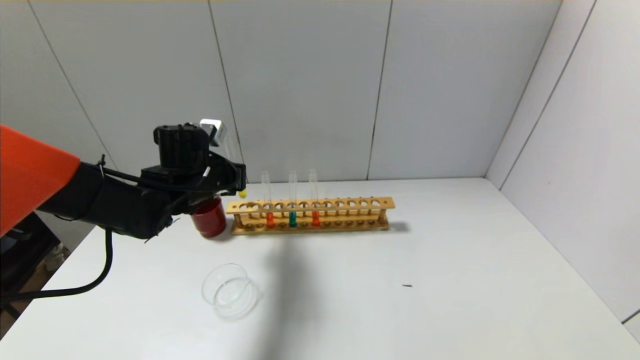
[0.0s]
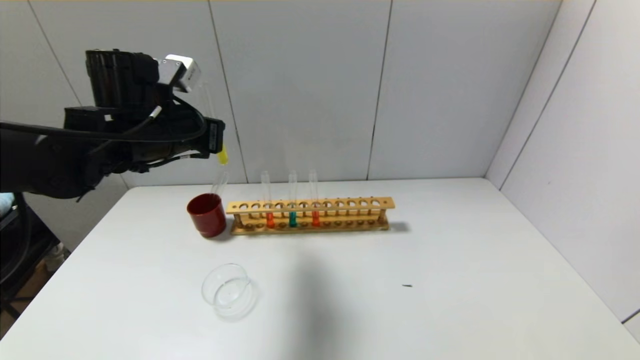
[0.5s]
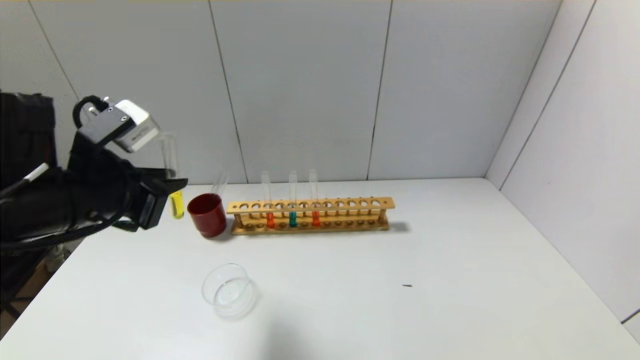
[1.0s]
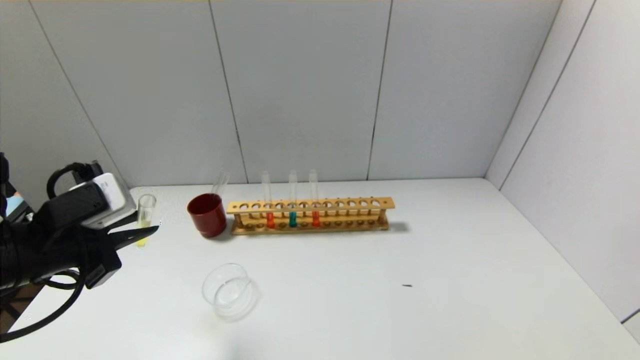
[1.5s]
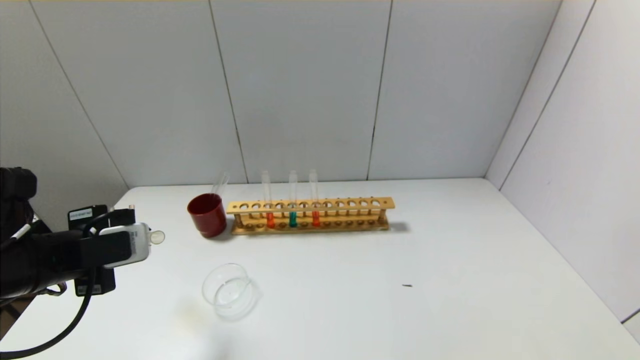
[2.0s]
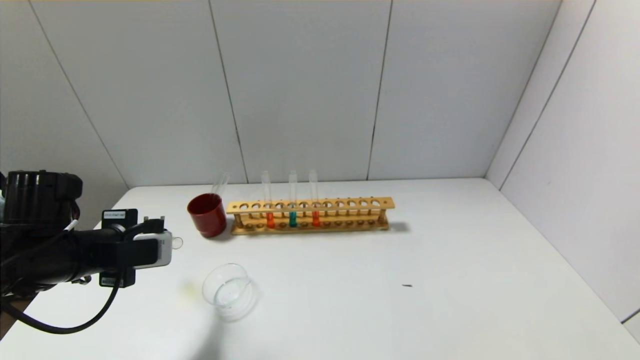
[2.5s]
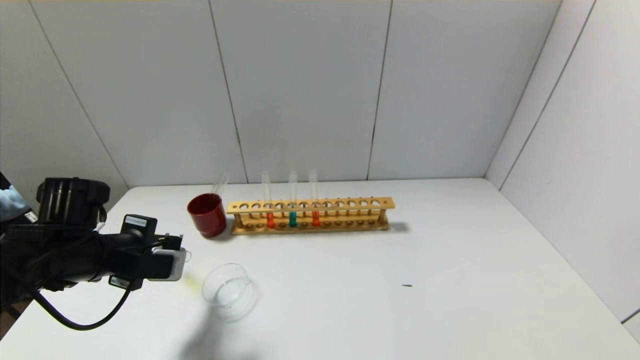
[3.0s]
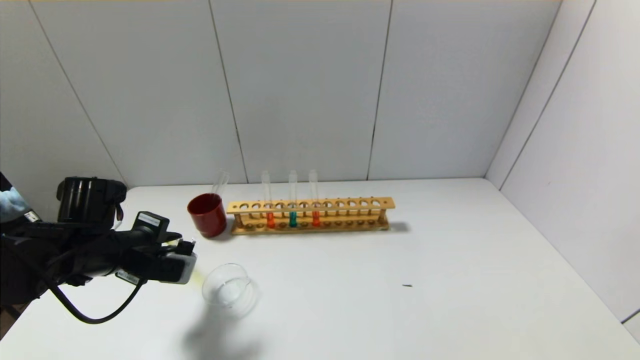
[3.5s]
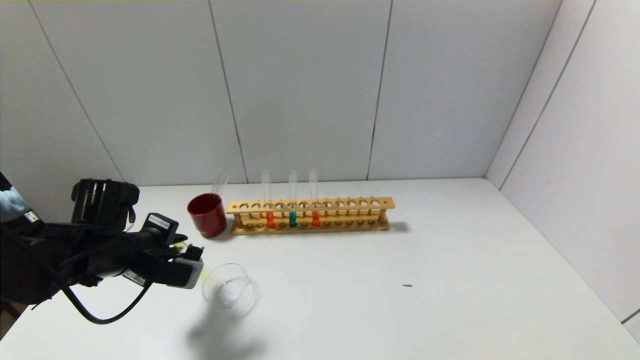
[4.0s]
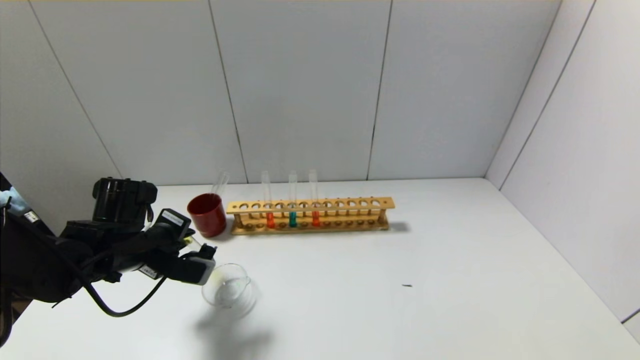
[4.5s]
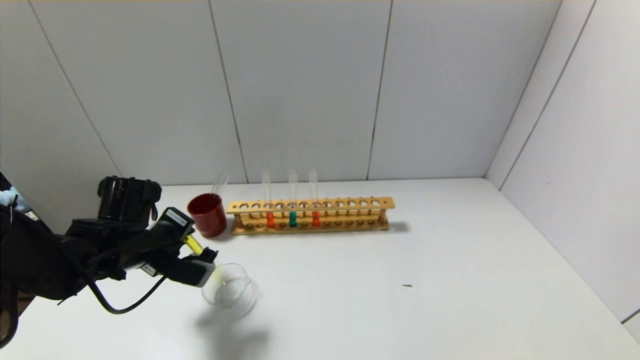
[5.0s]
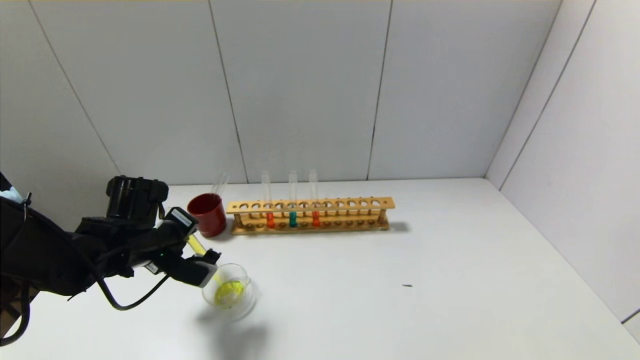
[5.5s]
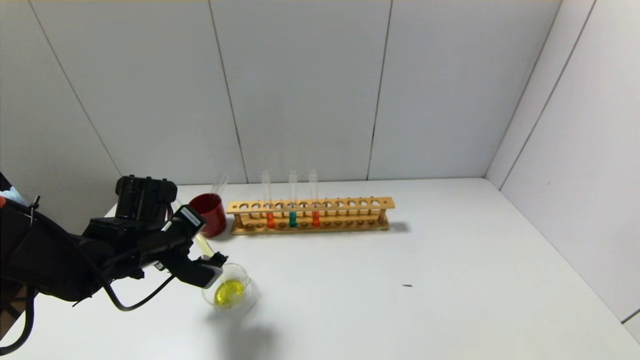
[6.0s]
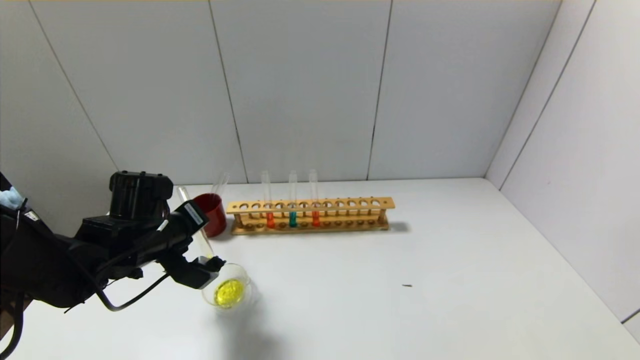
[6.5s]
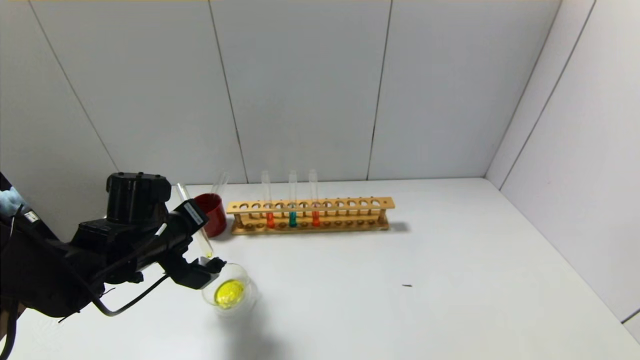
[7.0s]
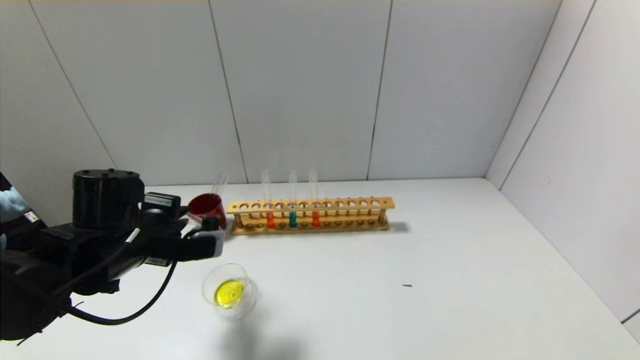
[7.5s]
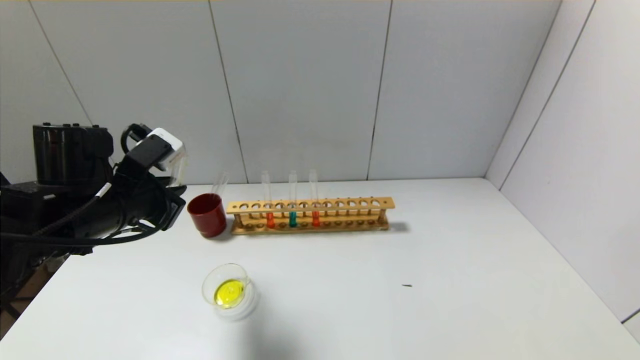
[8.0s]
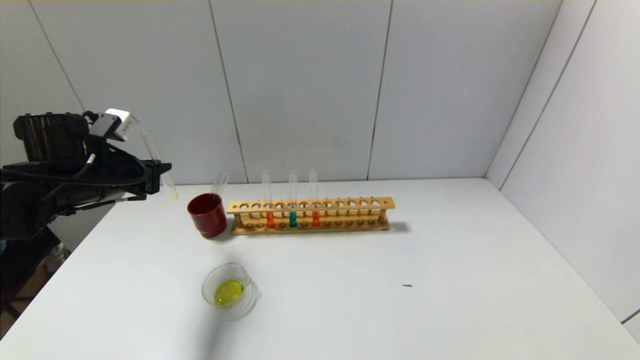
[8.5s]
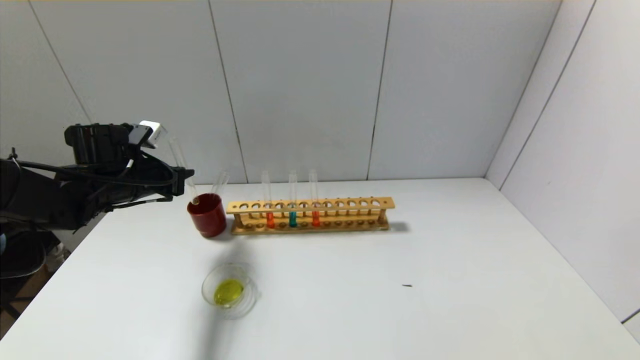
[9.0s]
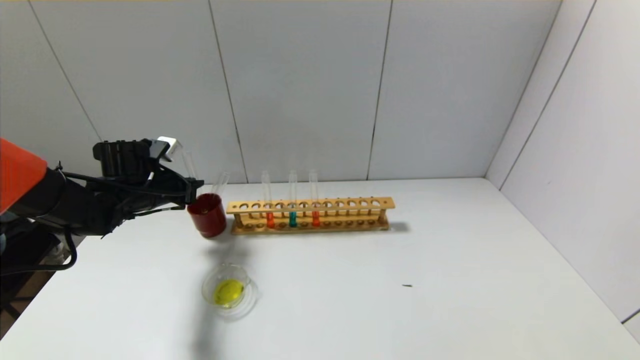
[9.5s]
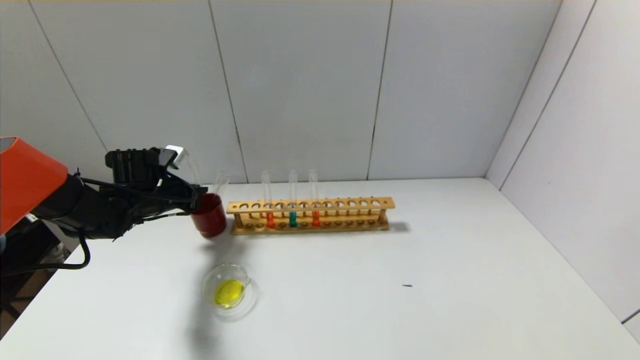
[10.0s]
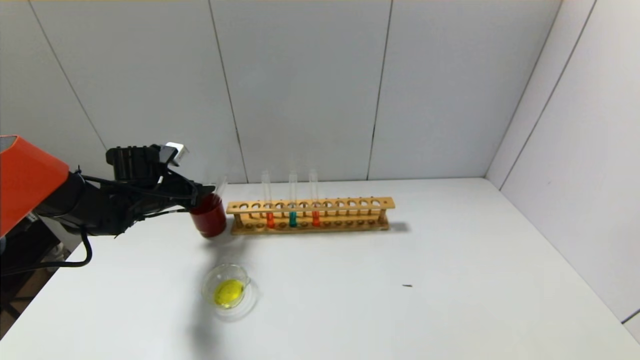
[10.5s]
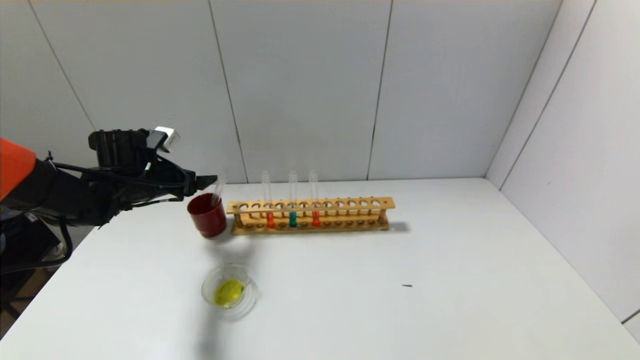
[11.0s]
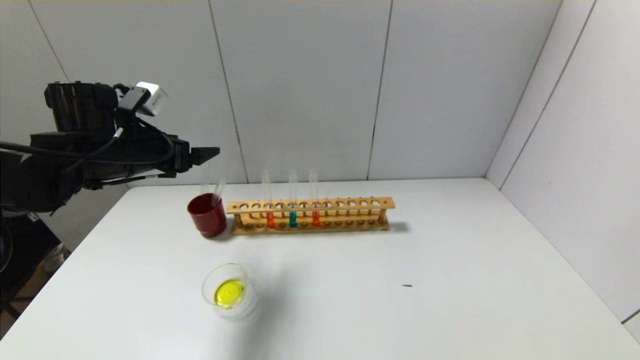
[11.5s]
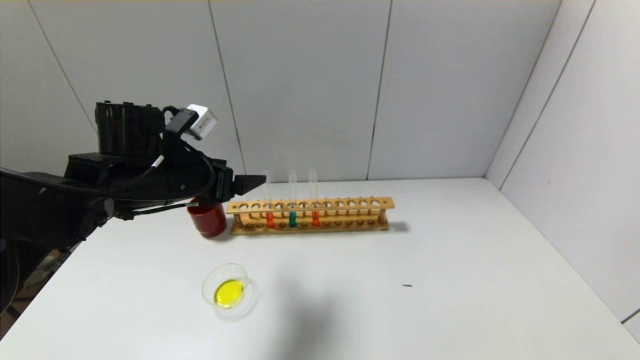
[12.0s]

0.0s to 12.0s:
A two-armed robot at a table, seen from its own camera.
Step, 0.0s to 7.5s: Pour the yellow reagent into the graduated cylinder with the left gripper.
Step, 8.0s to 10.0s: Place the test tube into the brown cup with the left gripper.
0.0s to 2.0s: The left gripper is displaced backward and to the left by roughly 20 cm.
2.0s to 4.0s: The left gripper moves forward and downward, about 10 cm.
6.0s to 8.0s: The left gripper moves upward, roughly 10 cm.
8.0s to 10.0s: The left gripper goes approximately 20 cm forward, downward and to the left.
10.0s to 12.0s: The left gripper goes roughly 20 cm upward, backward and to the right, and opens.

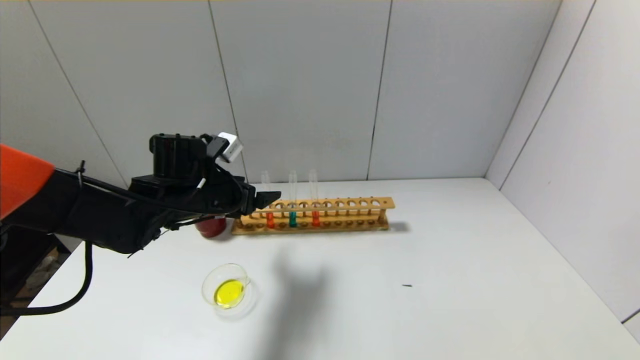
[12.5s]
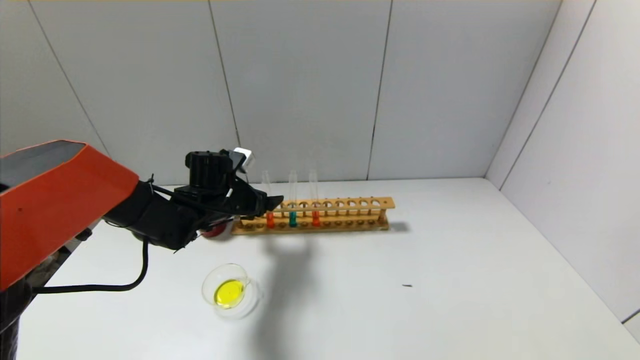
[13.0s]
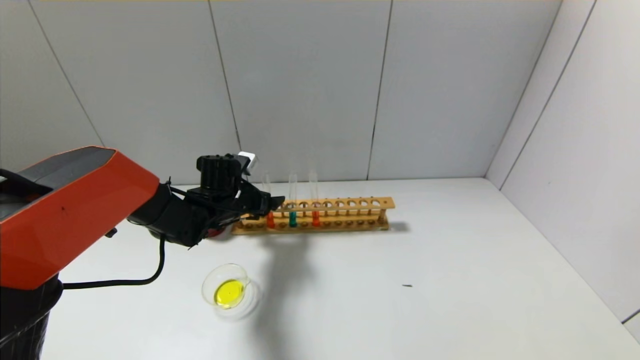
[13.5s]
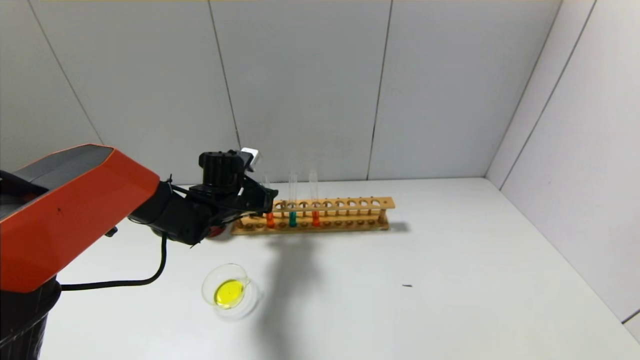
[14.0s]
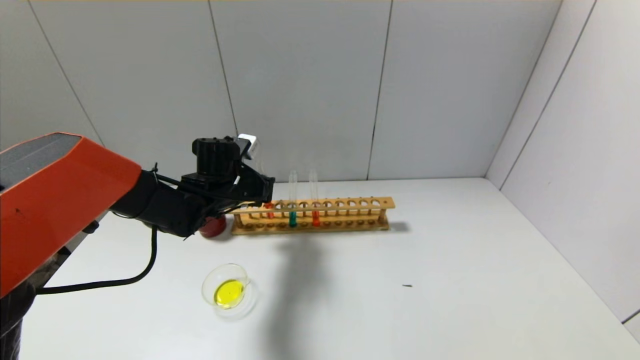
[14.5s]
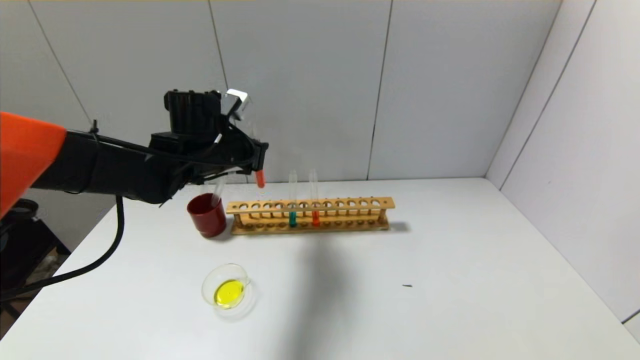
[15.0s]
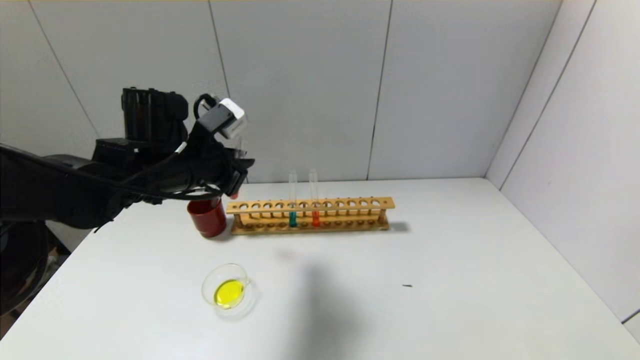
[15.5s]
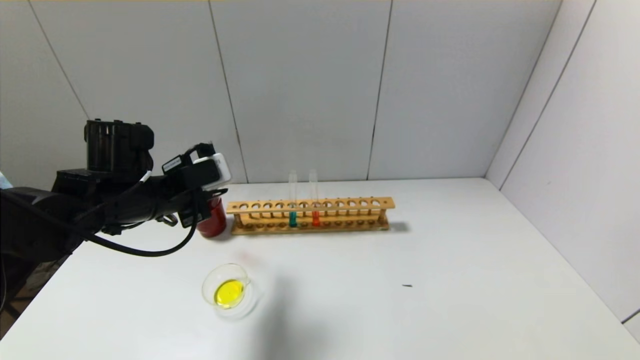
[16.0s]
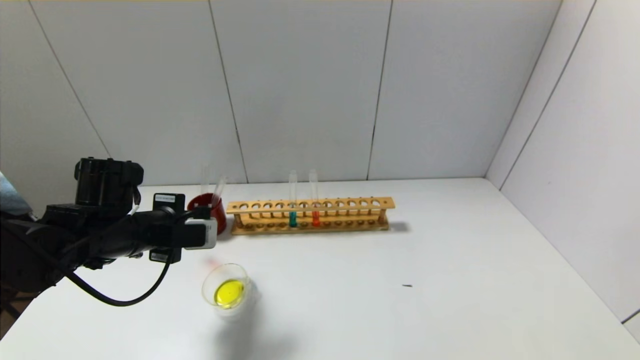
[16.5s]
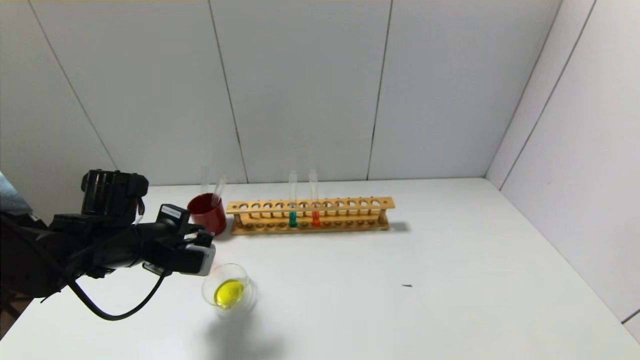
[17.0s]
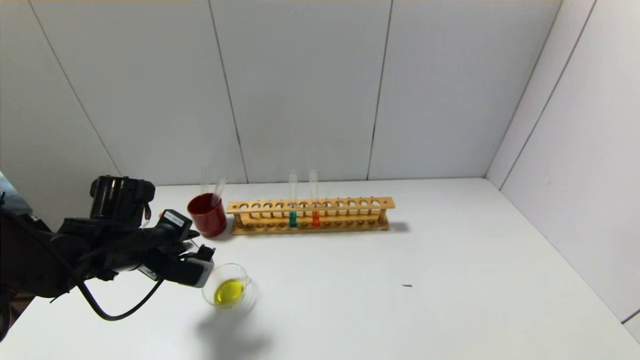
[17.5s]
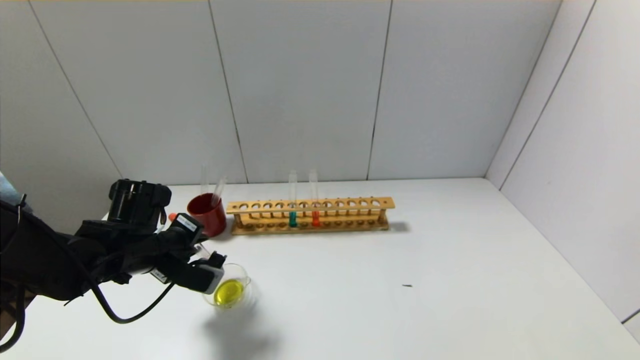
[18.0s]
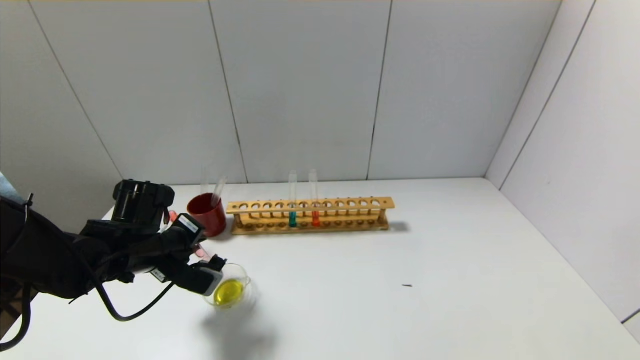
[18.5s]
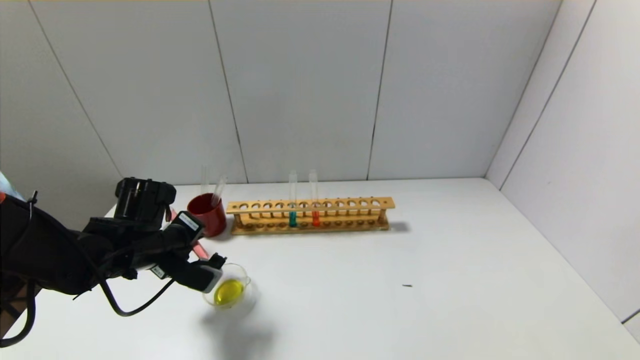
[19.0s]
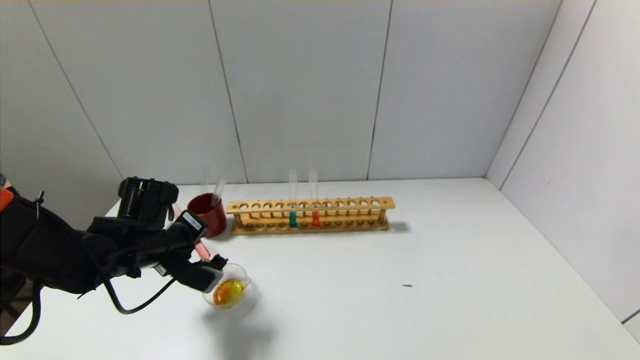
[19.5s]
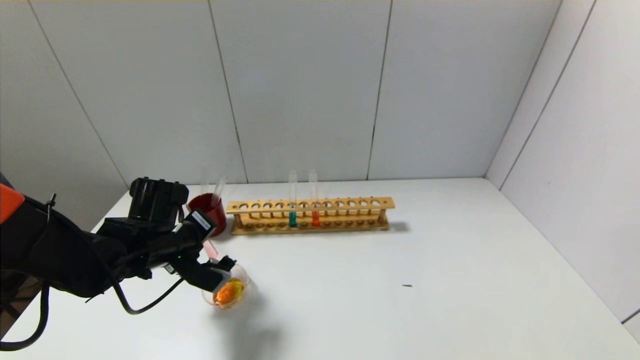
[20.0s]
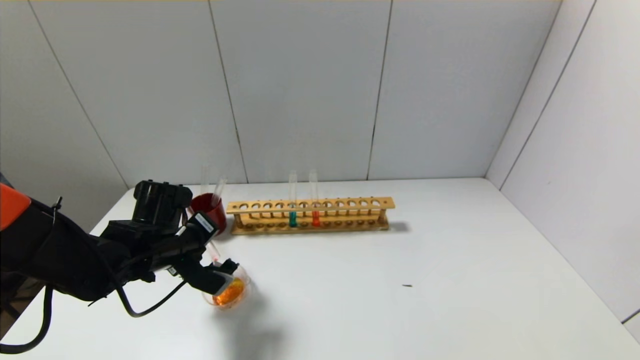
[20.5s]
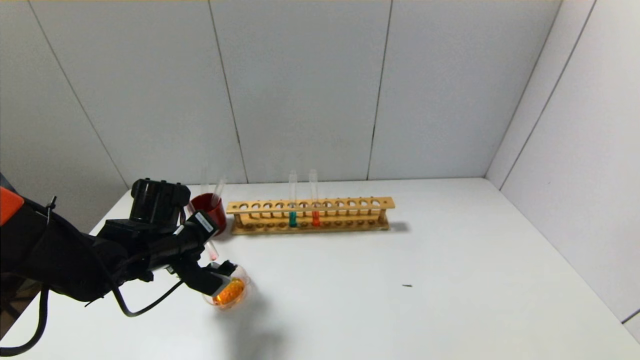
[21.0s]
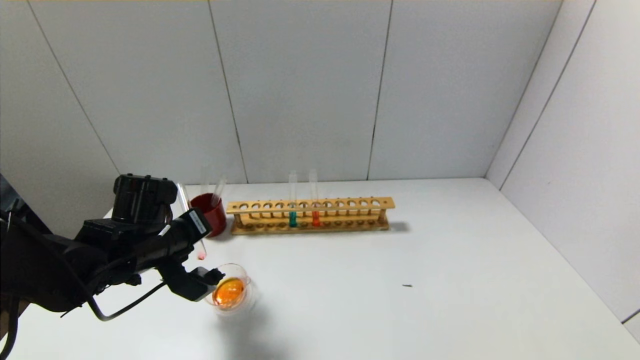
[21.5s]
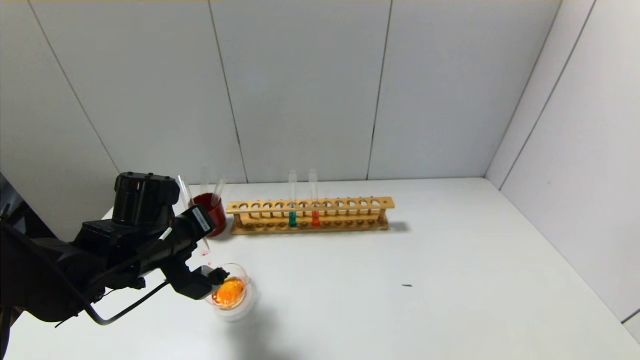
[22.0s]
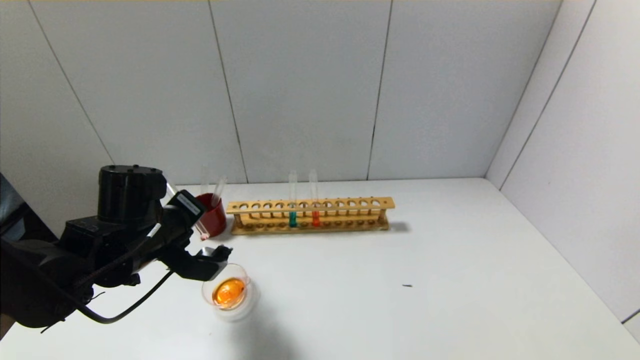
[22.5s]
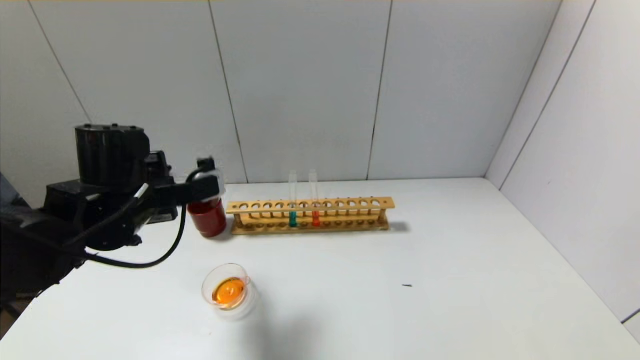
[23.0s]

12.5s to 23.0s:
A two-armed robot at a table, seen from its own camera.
Step, 14.5s to 22.5s: Pour the red reagent into the graduated cylinder with the left gripper.
12.5s to 14.5s: The left gripper goes some 5 cm forward, and closes up.
14.5s to 16.5s: The left gripper shifts some 15 cm backward and to the left.
19.0s to 21.0s: The grippers stay close to where they were, moving slightly.
21.0s to 23.0s: The left gripper travels upward by some 10 cm.
